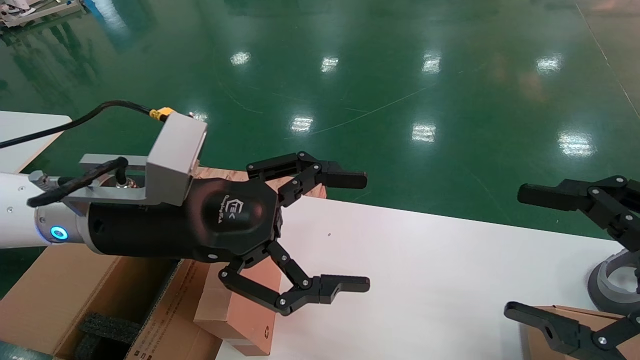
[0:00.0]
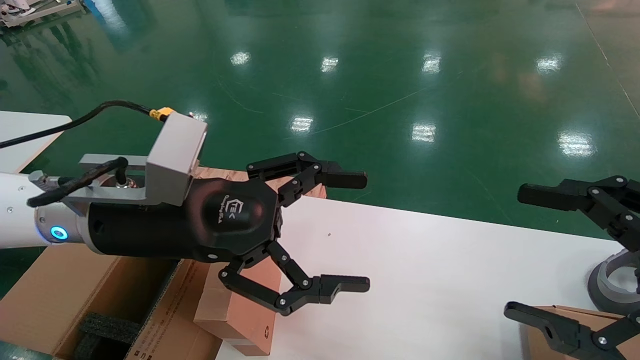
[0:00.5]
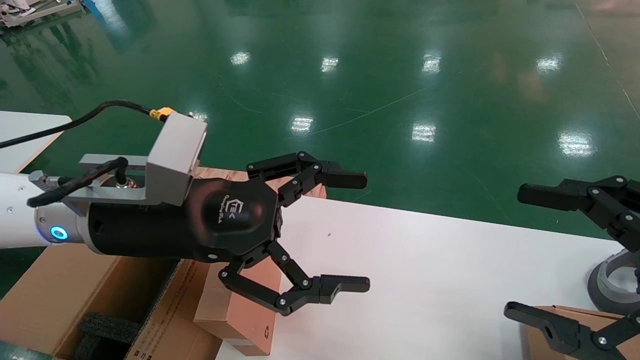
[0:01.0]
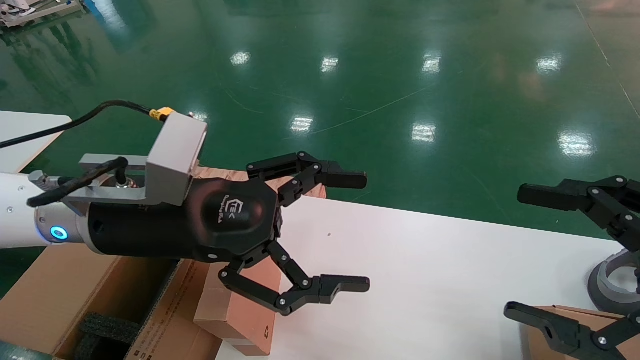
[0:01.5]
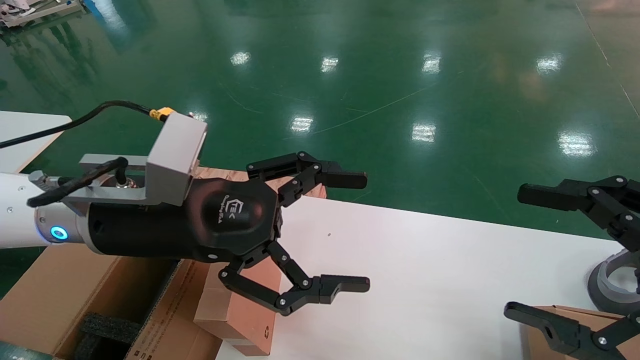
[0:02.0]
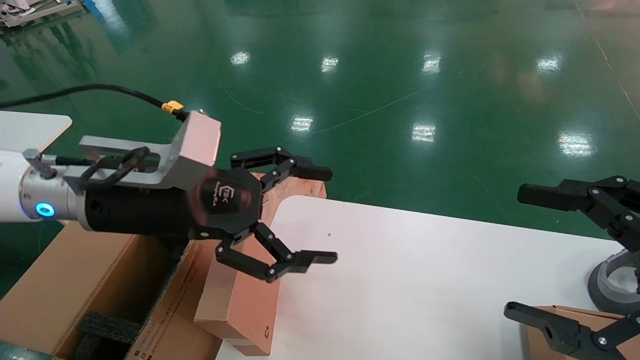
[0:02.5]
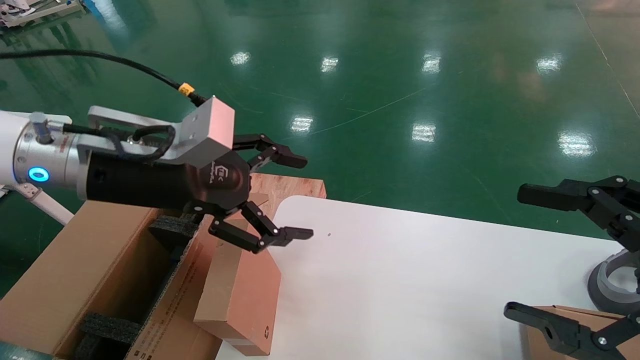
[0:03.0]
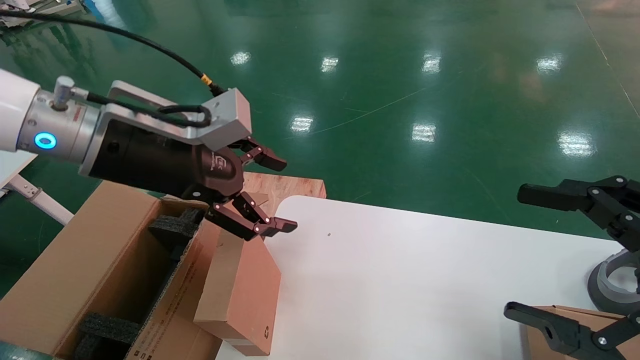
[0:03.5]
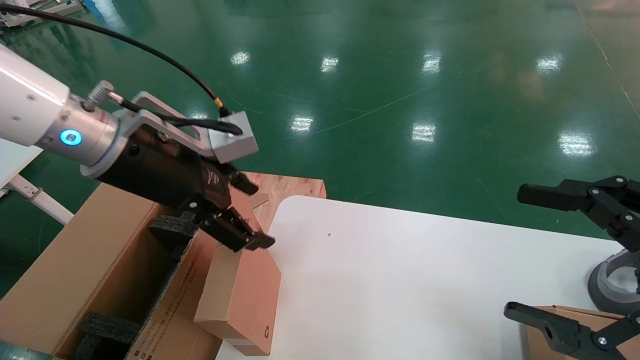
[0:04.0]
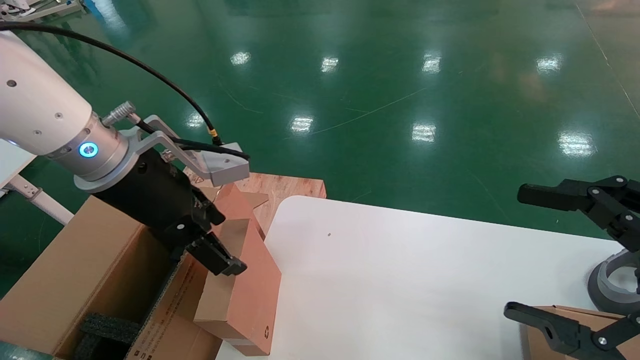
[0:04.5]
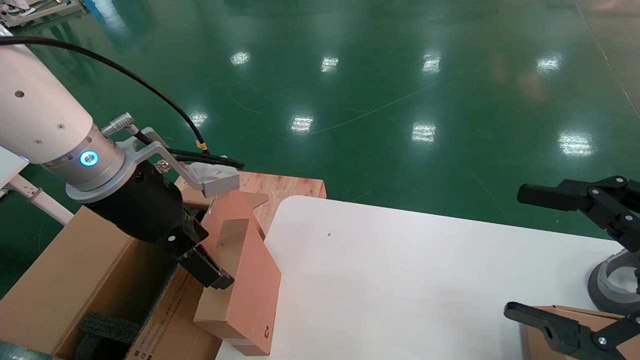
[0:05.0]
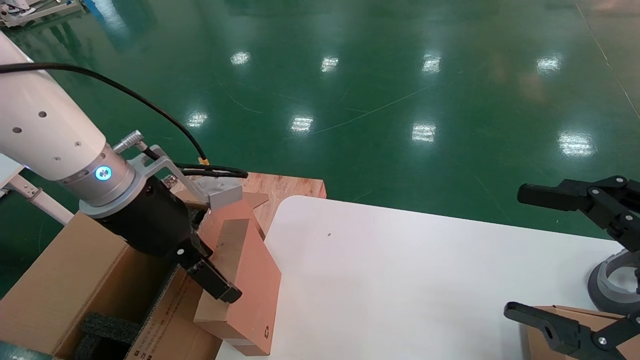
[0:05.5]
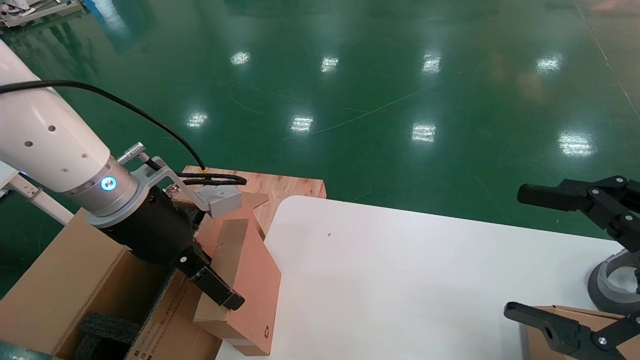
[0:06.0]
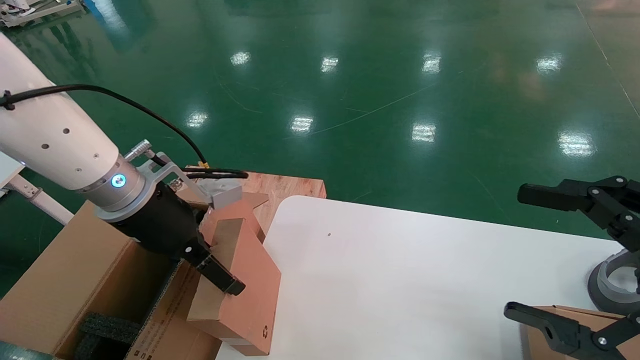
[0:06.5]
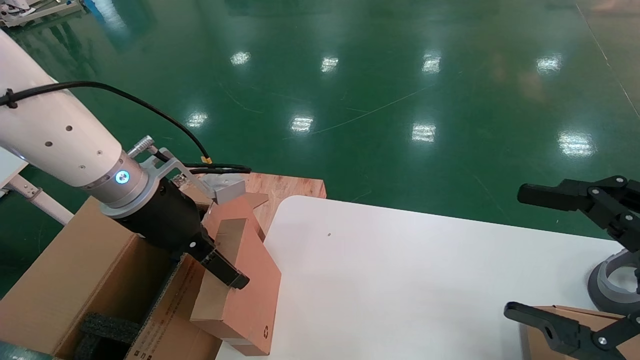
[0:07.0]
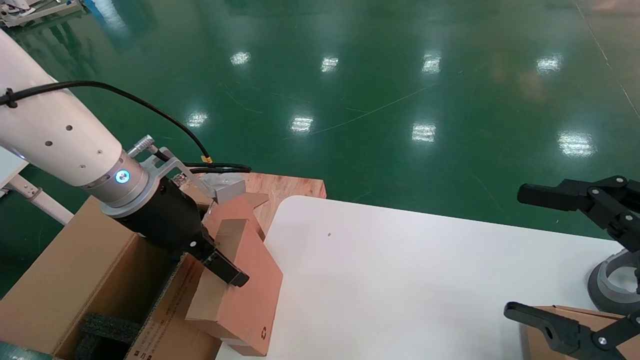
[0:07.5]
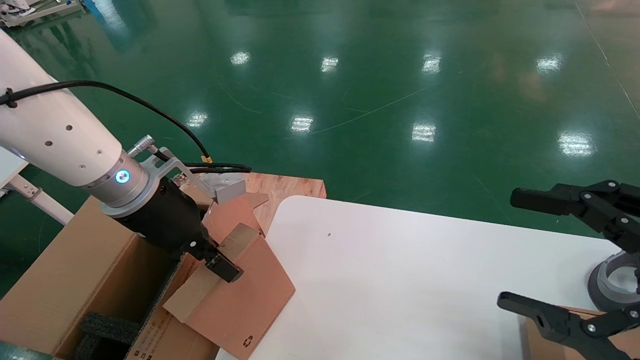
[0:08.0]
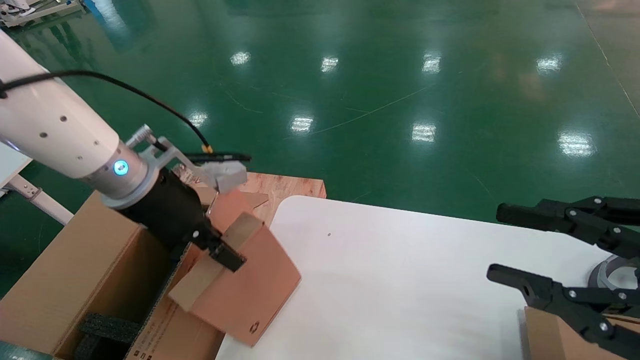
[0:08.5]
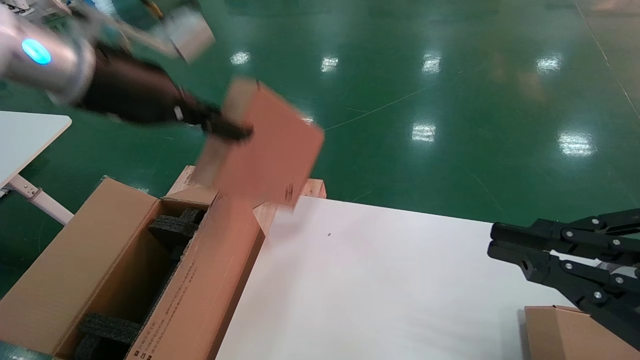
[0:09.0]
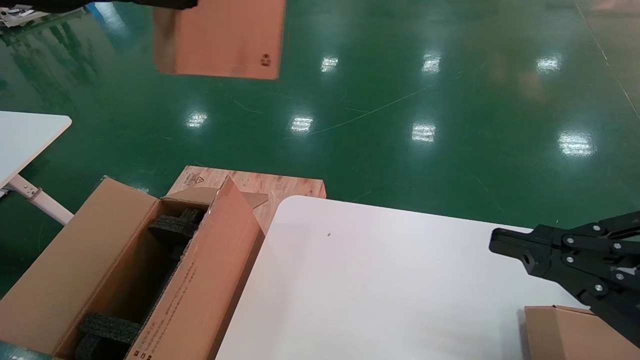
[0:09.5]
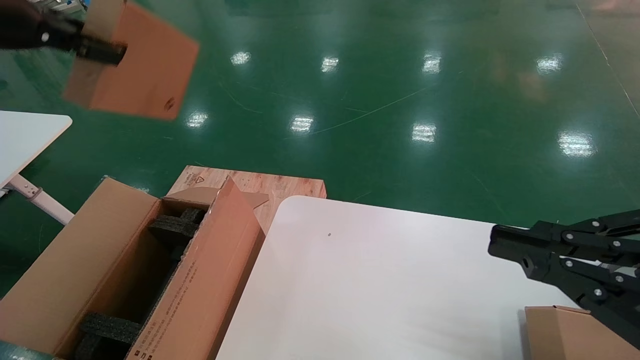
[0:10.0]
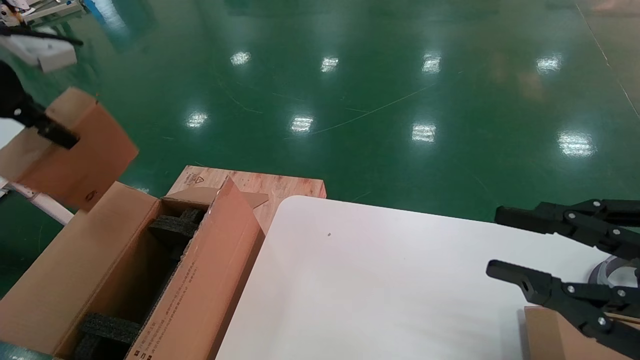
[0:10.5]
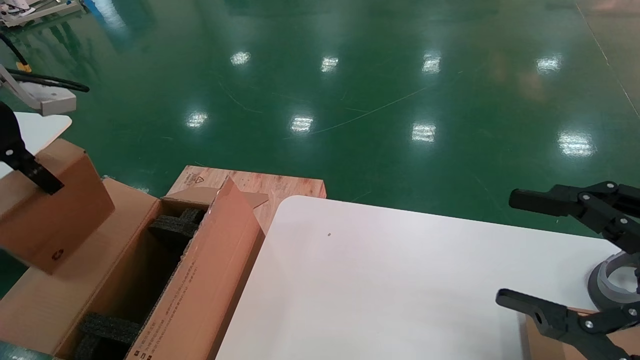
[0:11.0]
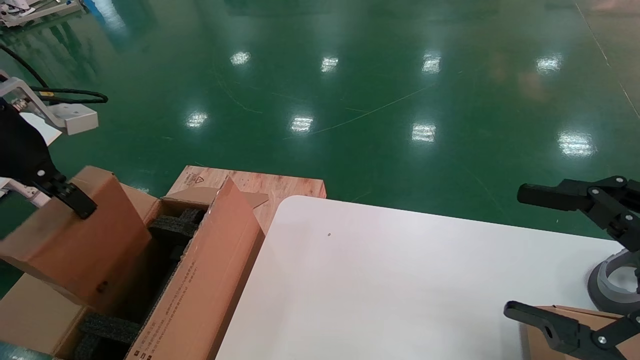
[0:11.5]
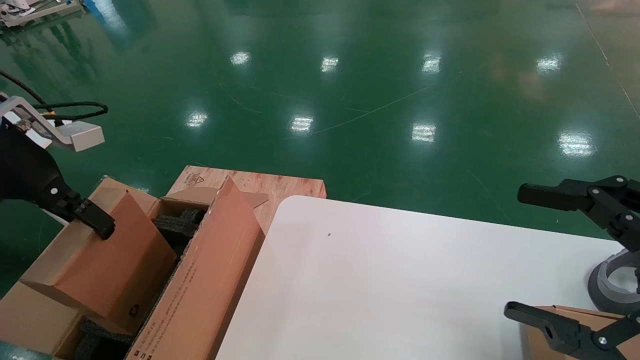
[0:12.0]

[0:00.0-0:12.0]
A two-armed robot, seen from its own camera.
Task of the whole recording: put the box on the table into the big box.
Step, 0:00.0 to 0:07.5: Grasp the paper box.
0:00.0 to 0:02.0: Both grippers stay about where they are.
0:02.0 to 0:04.0: The left gripper changes place by approximately 5 cm.
0:04.0 to 0:06.0: The left gripper goes approximately 5 cm downward.
0:06.0 to 0:08.0: The left gripper closes up.
0:08.0 to 0:10.0: The right gripper closes its fingers. The left gripper heads upward and to the left, covering roughly 25 cm, and closes.
0:10.0 to 0:12.0: The left gripper is displaced downward by roughly 10 cm. The right gripper opens.

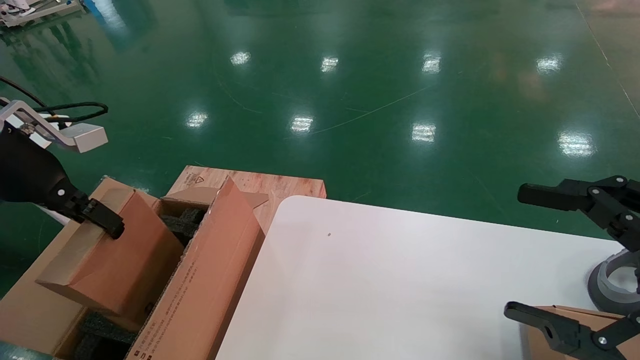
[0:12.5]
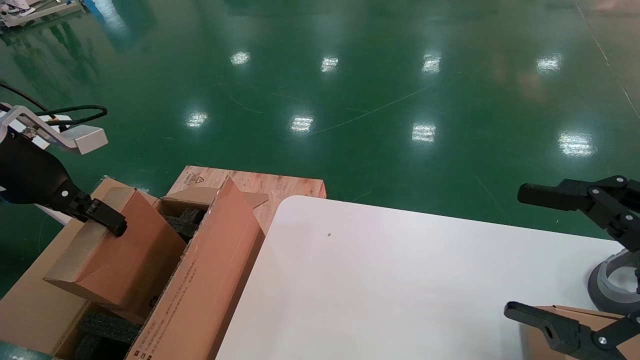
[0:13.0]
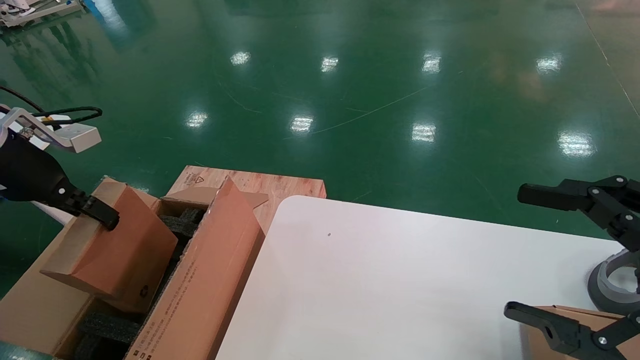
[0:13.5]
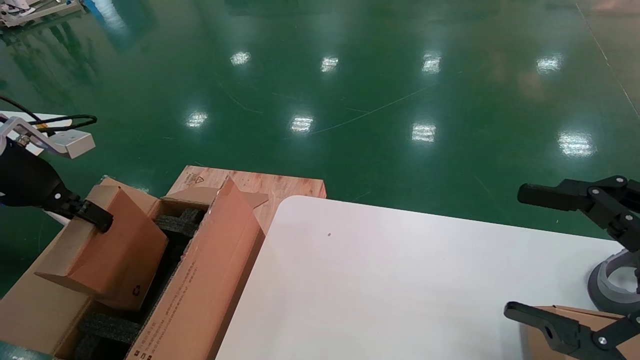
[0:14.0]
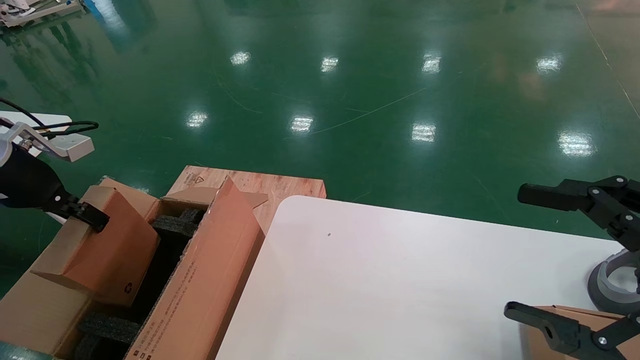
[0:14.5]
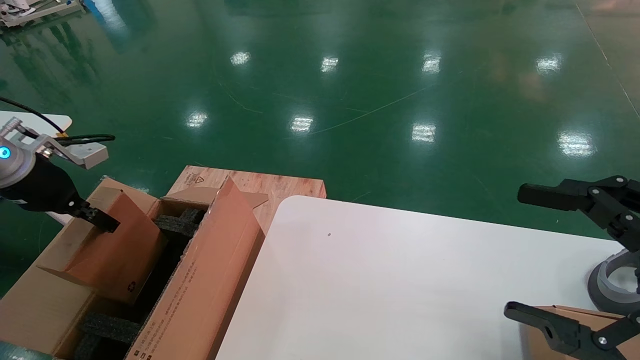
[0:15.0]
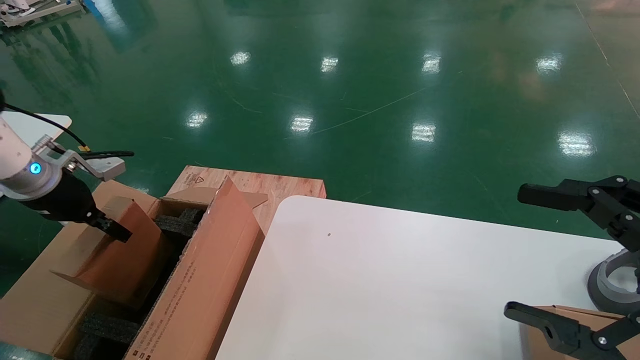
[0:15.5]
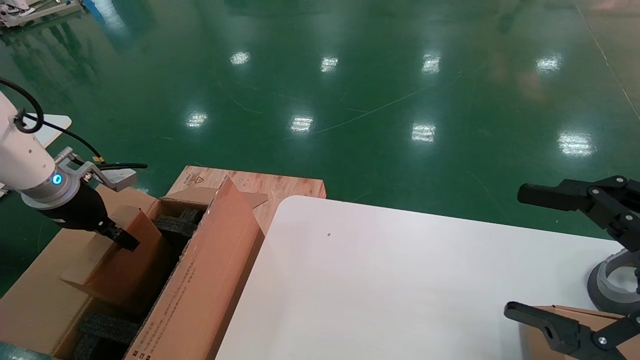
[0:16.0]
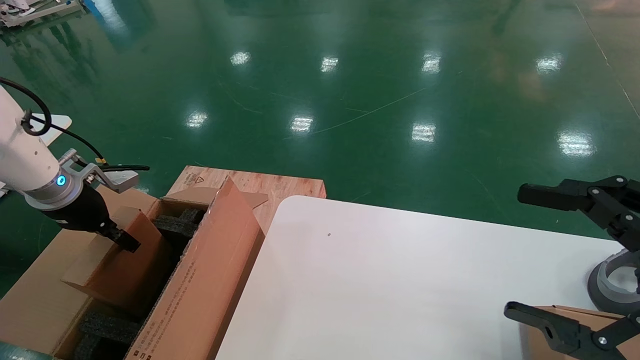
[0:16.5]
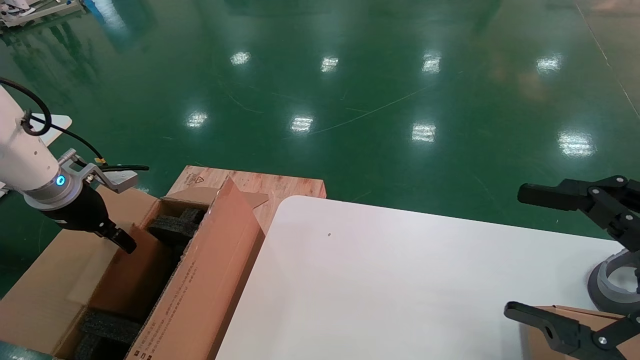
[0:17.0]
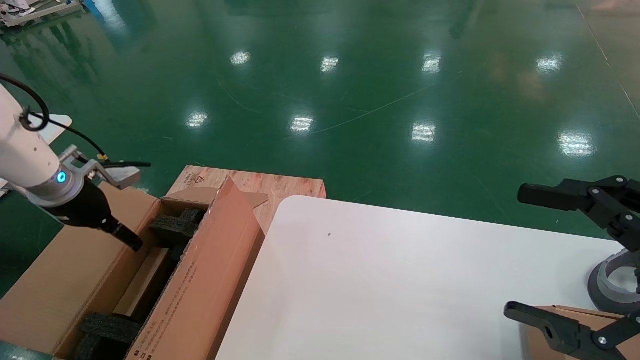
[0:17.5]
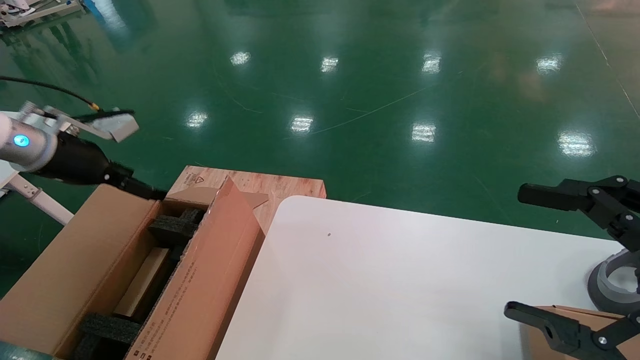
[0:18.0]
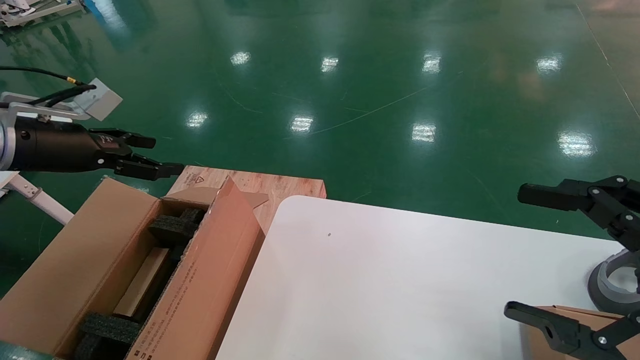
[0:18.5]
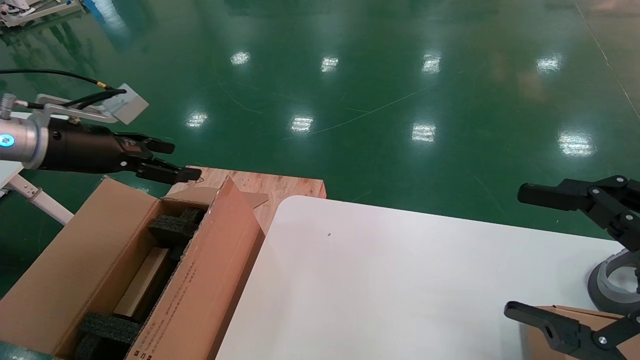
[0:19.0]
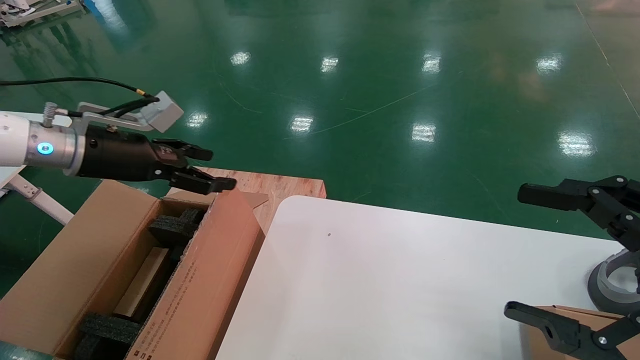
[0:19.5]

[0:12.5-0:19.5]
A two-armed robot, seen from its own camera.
Task of the whole recording: put the box on the table into the big box.
Step, 0:12.5 to 0:17.0: Place the paper box in the another big box.
0:12.5 to 0:14.5: The left gripper travels to the left by approximately 5 cm.
0:14.5 to 0:16.0: The left gripper shifts approximately 10 cm downward and forward.
0:16.0 to 0:17.5: The left gripper opens its fingers.
0:17.5 to 0:19.5: The left gripper travels to the right and upward by about 10 cm.
